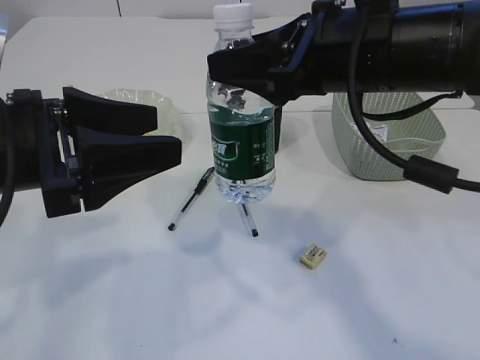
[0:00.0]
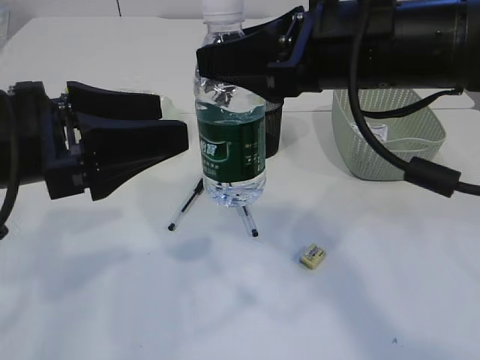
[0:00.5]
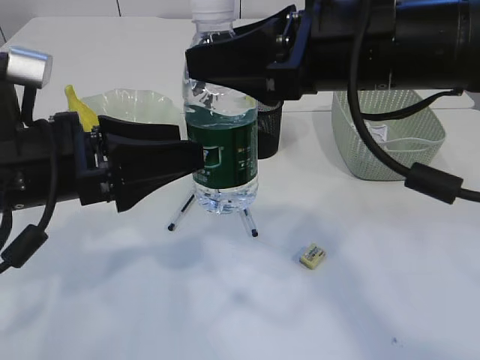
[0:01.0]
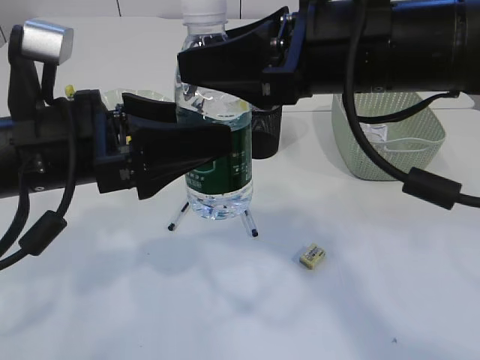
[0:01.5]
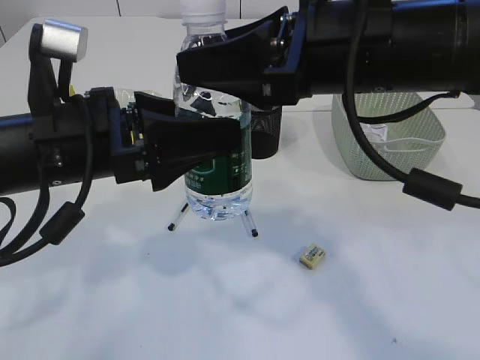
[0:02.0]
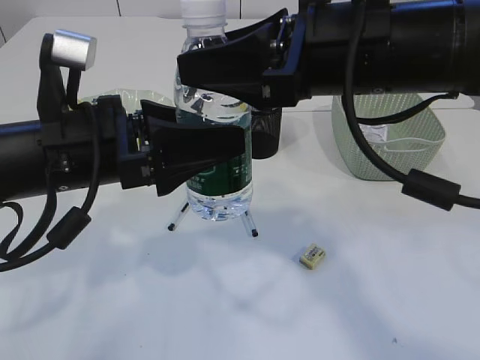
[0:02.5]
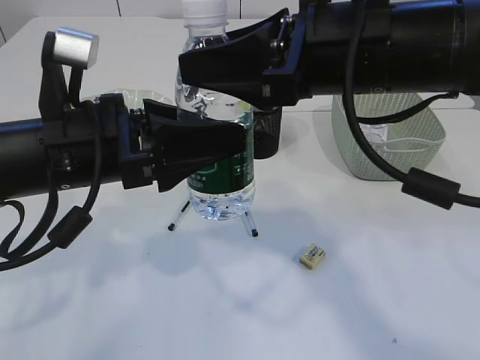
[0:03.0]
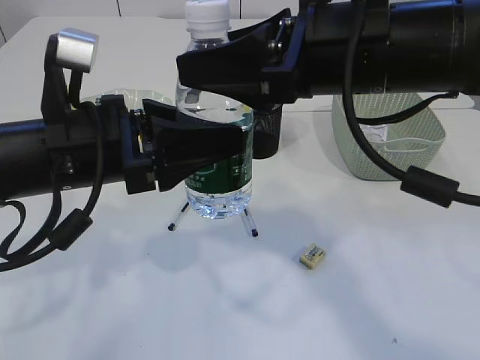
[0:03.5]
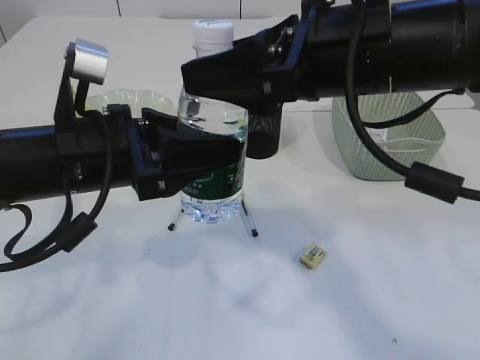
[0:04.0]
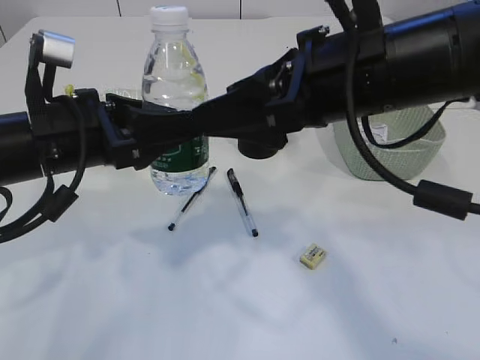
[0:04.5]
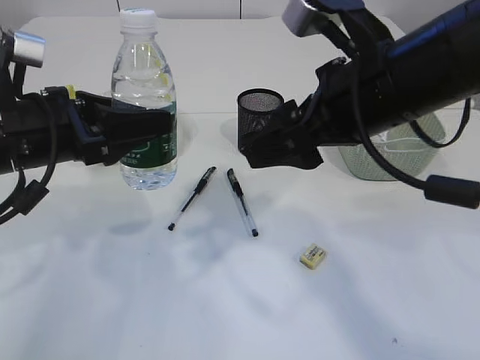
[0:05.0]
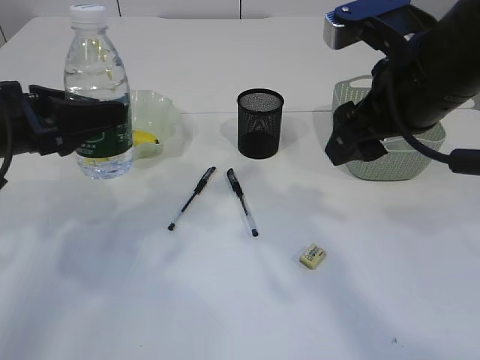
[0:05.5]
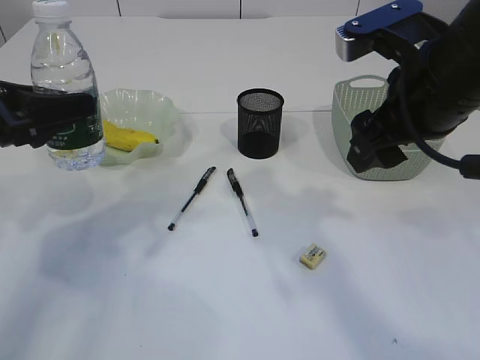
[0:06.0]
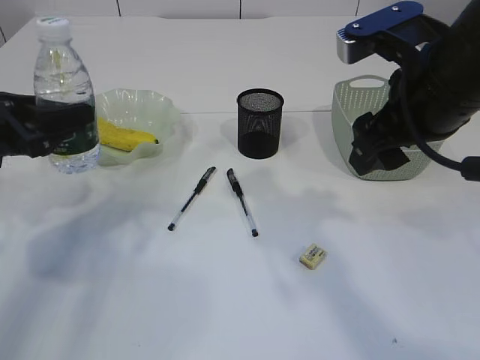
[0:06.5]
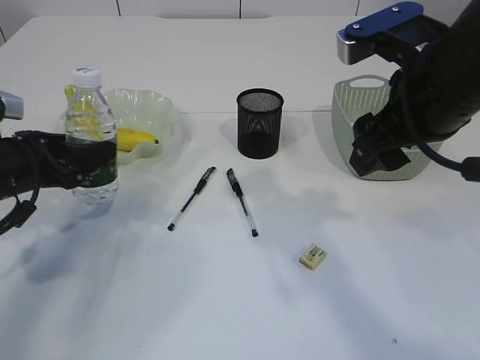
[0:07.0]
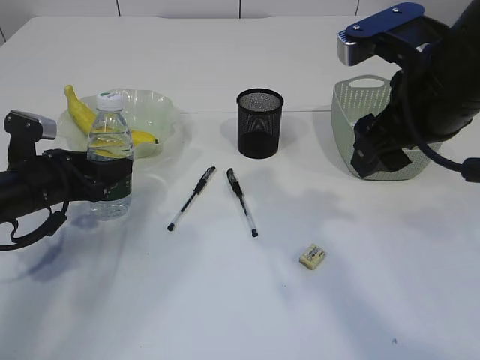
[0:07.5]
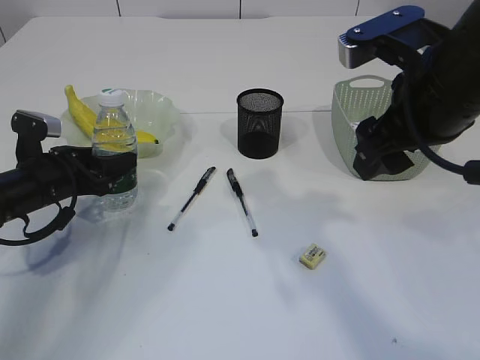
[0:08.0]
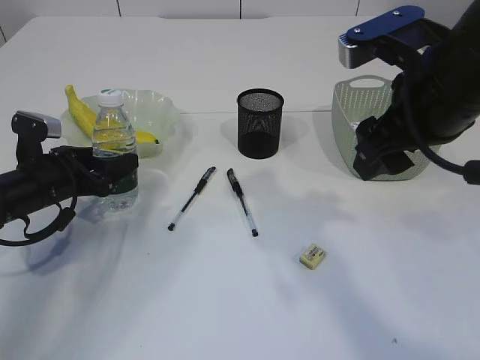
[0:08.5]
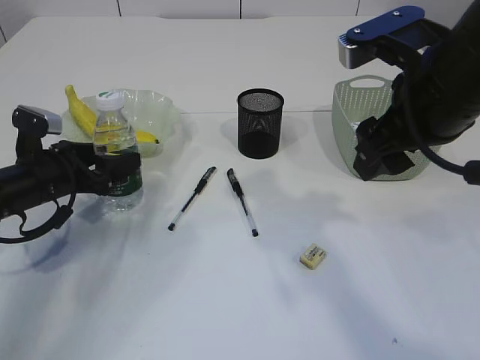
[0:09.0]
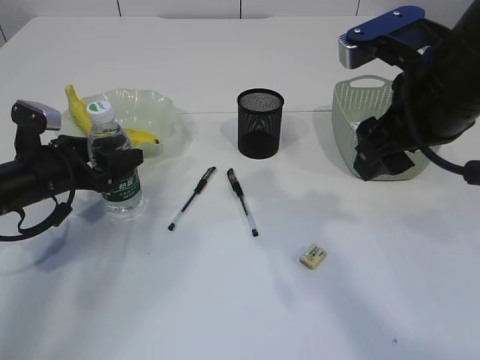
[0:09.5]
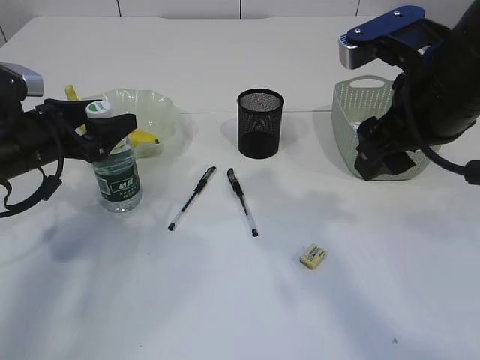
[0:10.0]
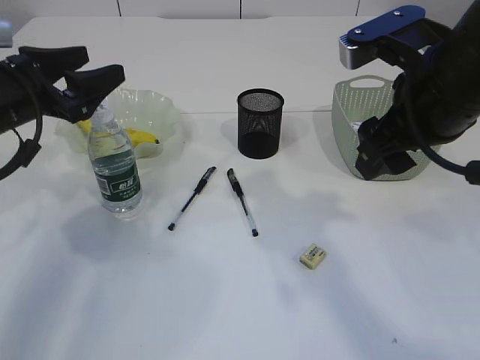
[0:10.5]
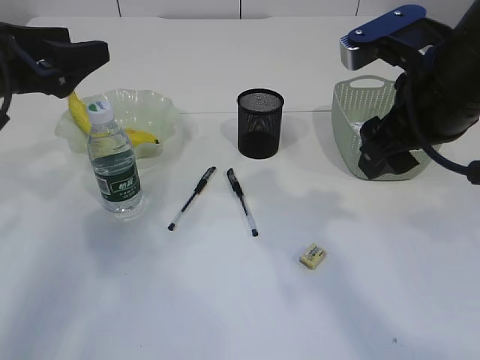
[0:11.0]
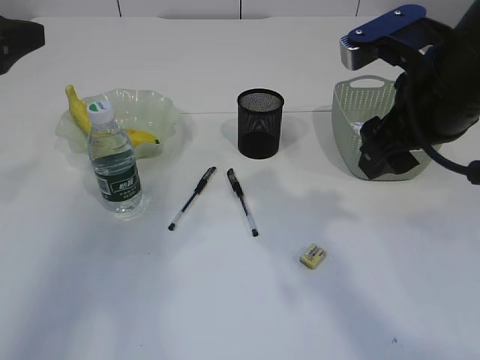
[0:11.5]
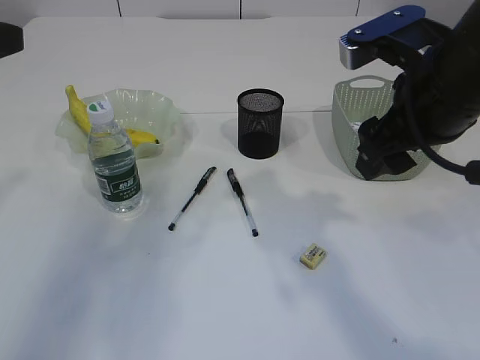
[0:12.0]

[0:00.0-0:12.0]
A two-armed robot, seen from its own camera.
Step, 0:00.0 to 0:04.0: transfer the bottle to the left arm.
Step, 0:04.5 to 0:10.0: Place the bottle.
0:00.0 to 0:02.0: The left gripper shifts by approximately 5 cm, and opens up.
0:02.0 to 0:04.0: The right gripper opens up; the left gripper closes its fingers.
0:04.0 to 0:06.0: The left gripper shifts approximately 15 cm to the left. The right gripper travels to the right by some 5 cm.
0:06.0 to 0:08.0: The left gripper goes approximately 15 cm downward and forward.
0:08.0 to 0:10.0: The left gripper heads upward, covering approximately 5 cm, and opens its fingers.
0:10.0 to 0:12.0: The left gripper goes about 20 cm upward and backward.

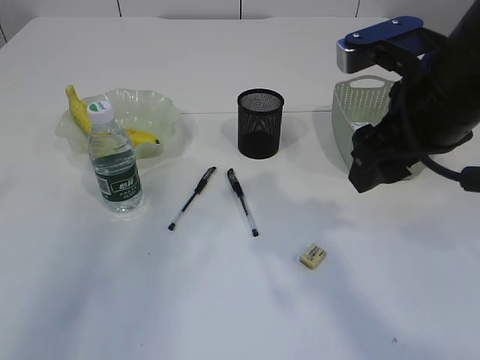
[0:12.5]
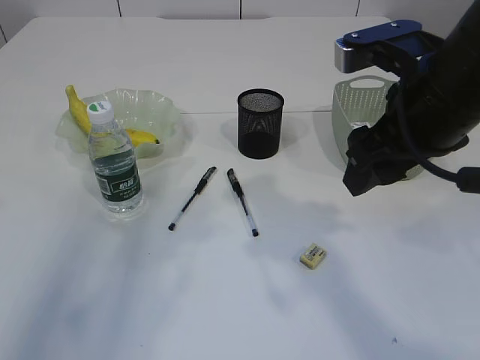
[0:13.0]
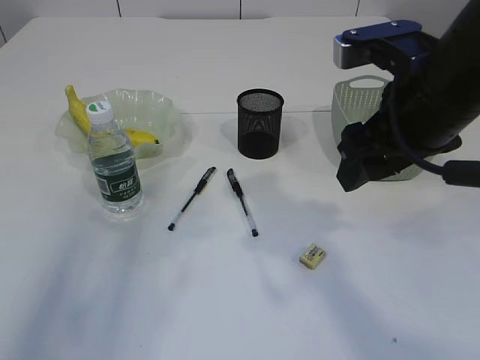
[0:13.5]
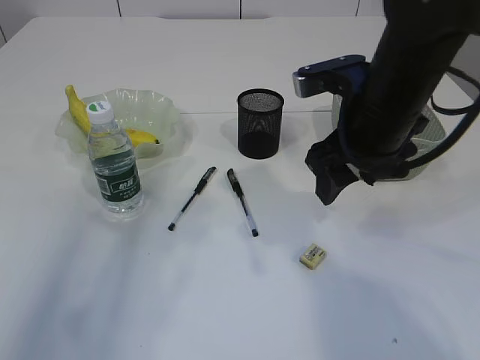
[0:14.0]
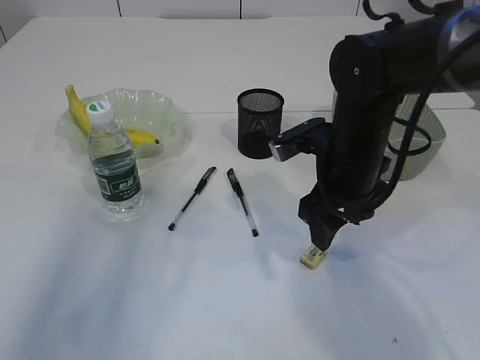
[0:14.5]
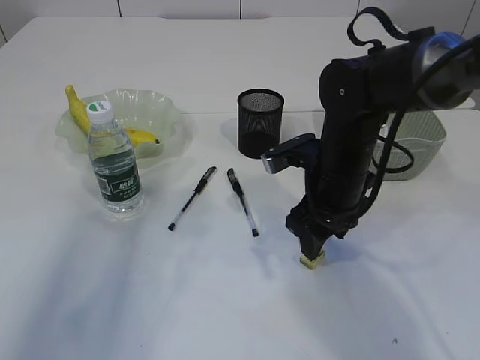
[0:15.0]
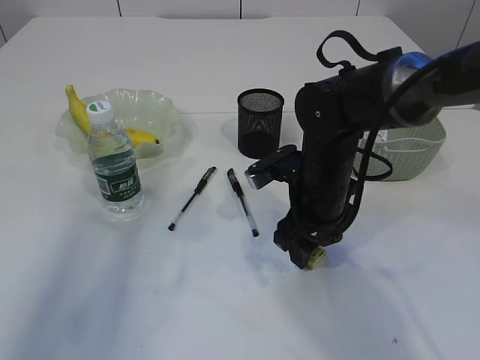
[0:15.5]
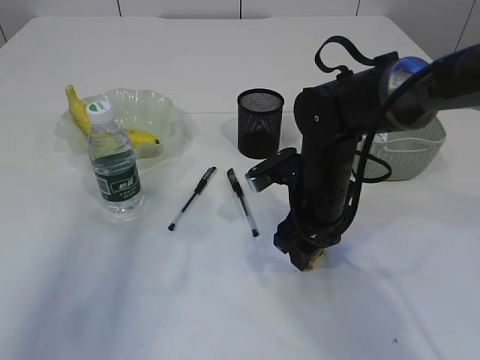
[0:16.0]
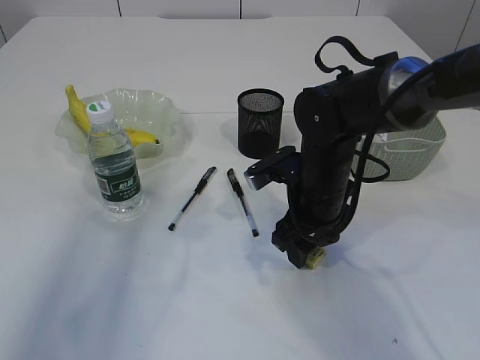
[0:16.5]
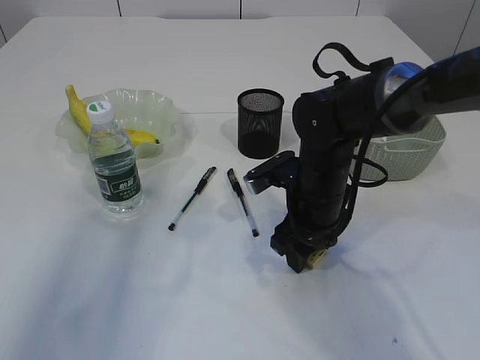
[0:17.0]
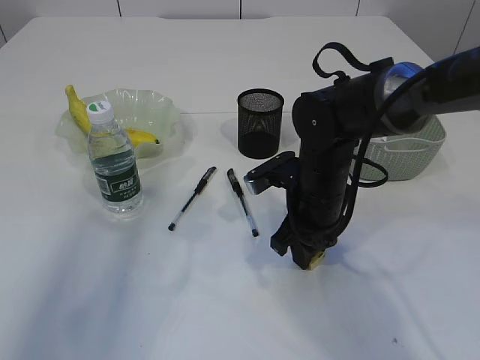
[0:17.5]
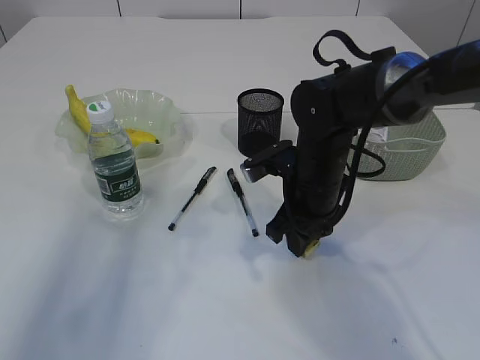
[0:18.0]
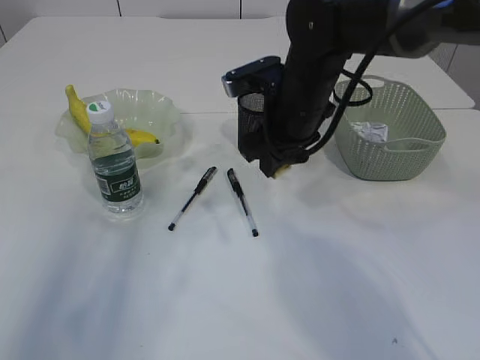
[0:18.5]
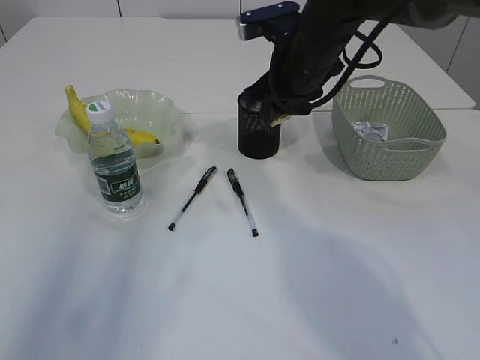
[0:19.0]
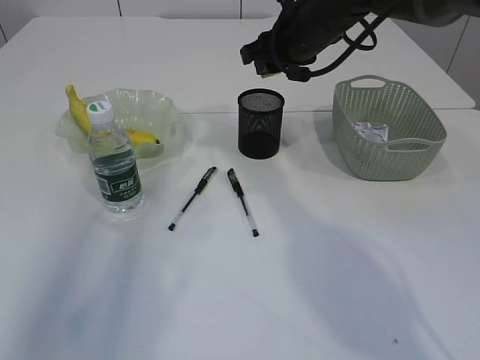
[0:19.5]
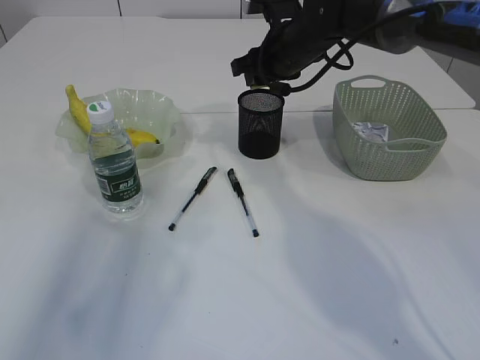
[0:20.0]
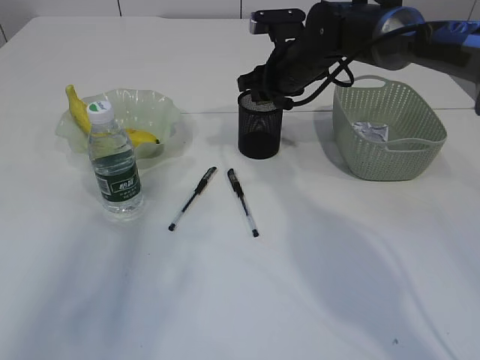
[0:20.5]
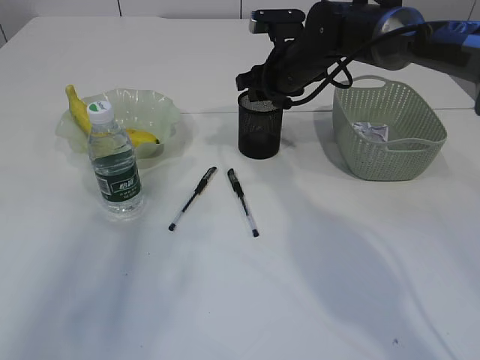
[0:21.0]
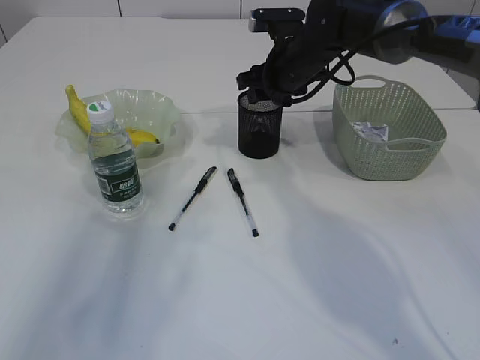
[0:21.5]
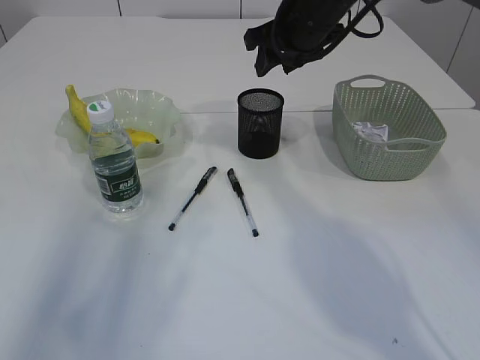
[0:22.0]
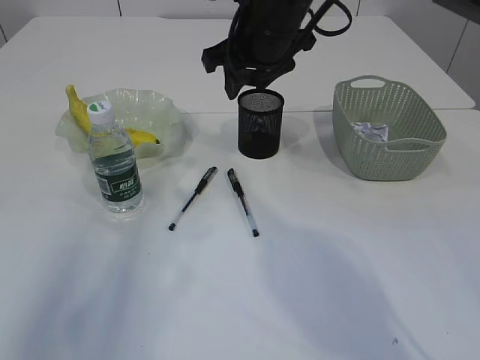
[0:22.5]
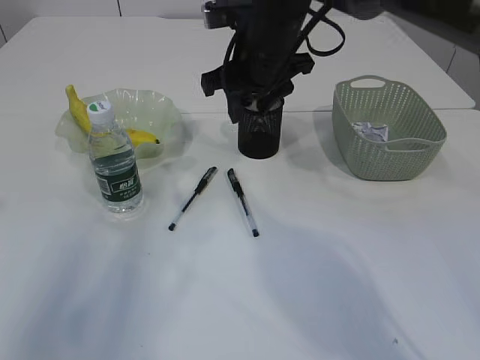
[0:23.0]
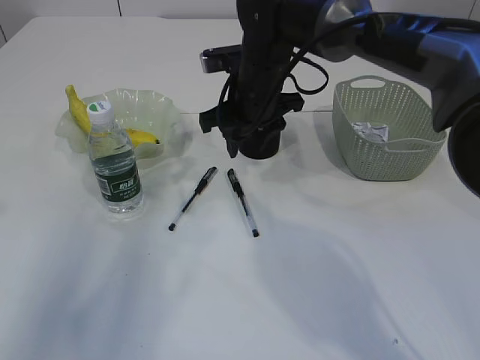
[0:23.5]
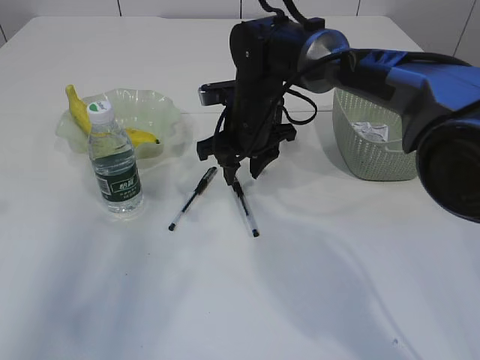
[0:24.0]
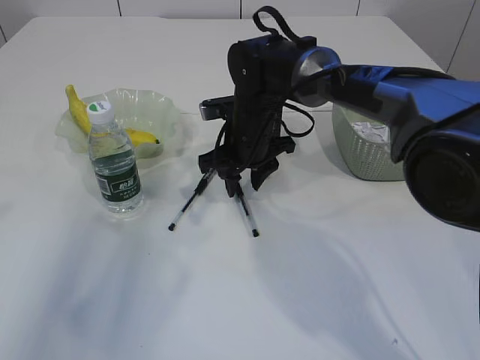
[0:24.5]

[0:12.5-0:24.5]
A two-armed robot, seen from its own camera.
Step, 0:12.5 to 0:18.0: Pick up the eraser.
Step, 0:18.5 to 0:22.0: Place the eraser into the pen holder.
0:12.5 to 0:14.5: The right gripper heads downward and forward, covering about 15 cm.
0:14.5 to 0:16.5: The right gripper travels downward by roughly 5 cm.
0:16.5 to 0:18.5: The right gripper travels upward by about 10 cm, and closes up.
0:18.5 to 0:20.5: The right gripper shifts about 10 cm forward.
0:20.5 to 0:22.5: The right gripper heads upward and backward, covering about 10 cm.
0:22.5 to 0:24.5: The right gripper heads downward, covering roughly 15 cm.

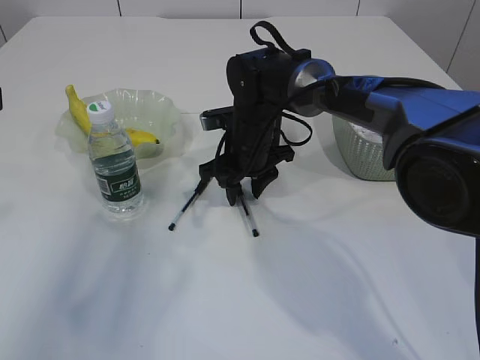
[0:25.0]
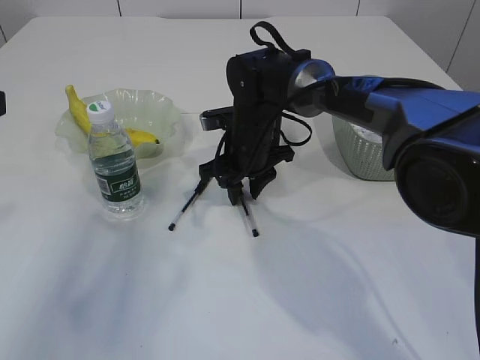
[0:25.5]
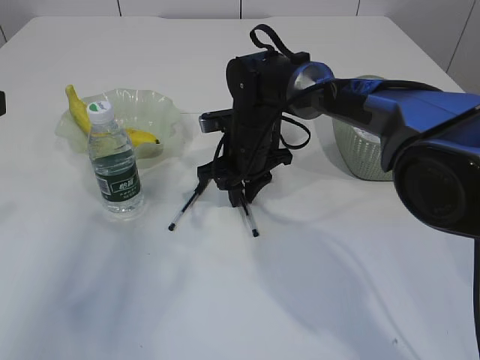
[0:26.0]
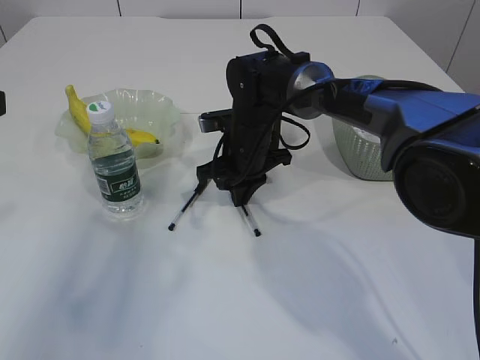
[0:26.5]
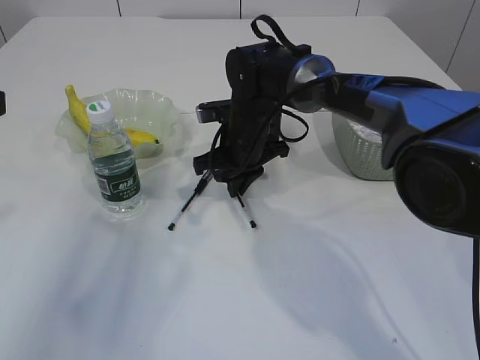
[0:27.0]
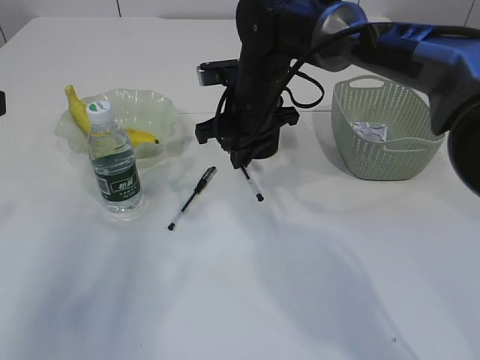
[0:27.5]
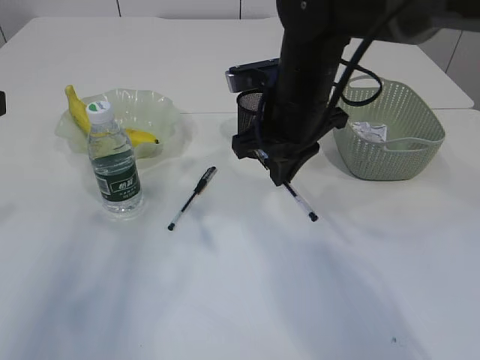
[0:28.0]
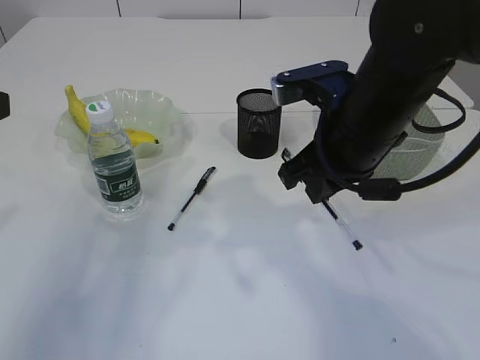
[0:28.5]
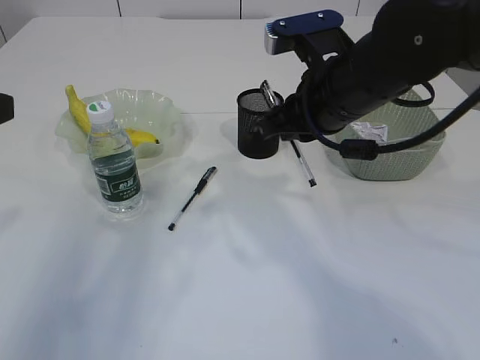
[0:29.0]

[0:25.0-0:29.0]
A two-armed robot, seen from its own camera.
Step, 0:25.0 to 0:27.5: Pick up the pen with right arm.
0:25.0 to 0:27.0: The right gripper closes up.
0:27.0 to 0:29.0: The right gripper heads upward, backward and to the right, covering approximately 20 cm.
